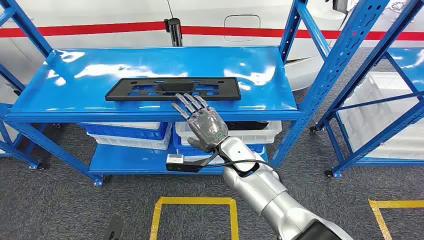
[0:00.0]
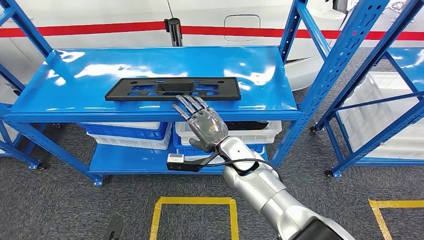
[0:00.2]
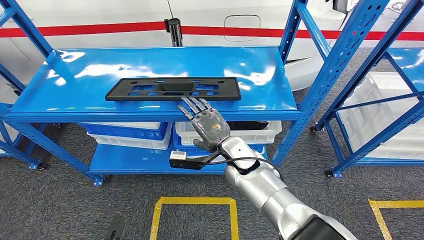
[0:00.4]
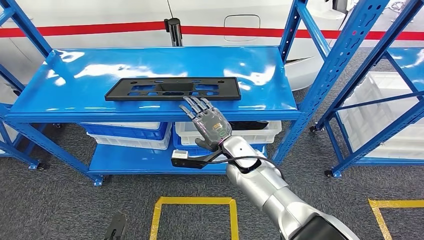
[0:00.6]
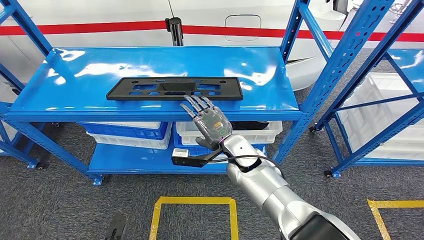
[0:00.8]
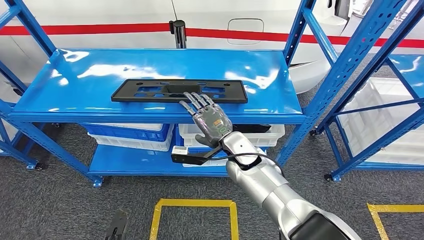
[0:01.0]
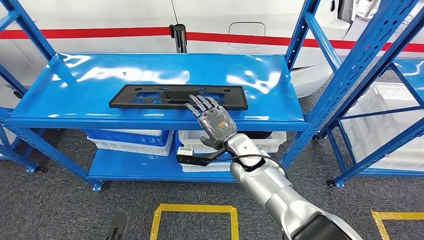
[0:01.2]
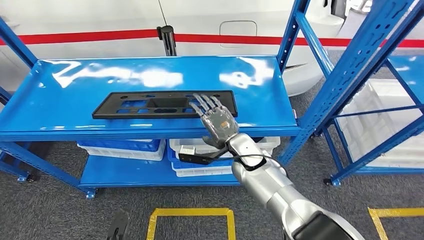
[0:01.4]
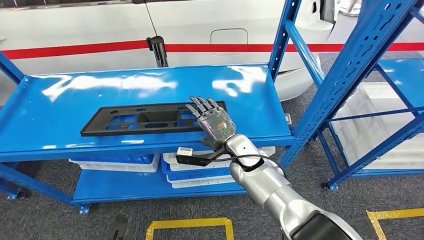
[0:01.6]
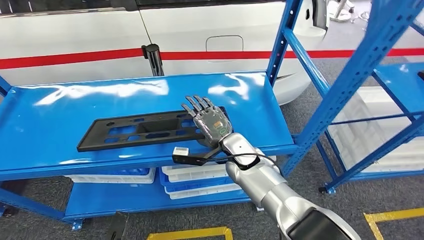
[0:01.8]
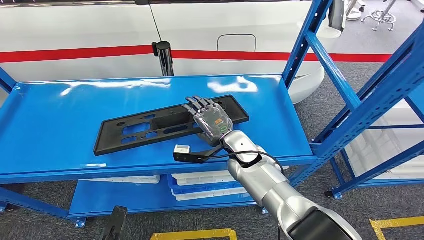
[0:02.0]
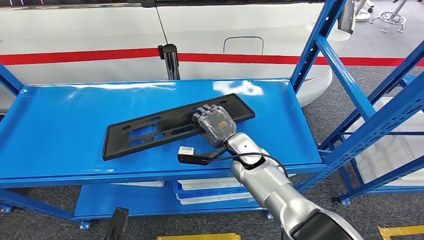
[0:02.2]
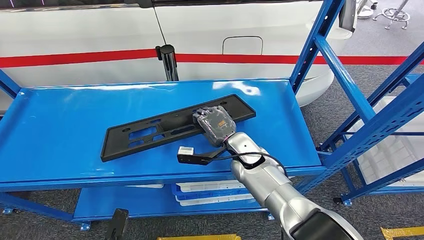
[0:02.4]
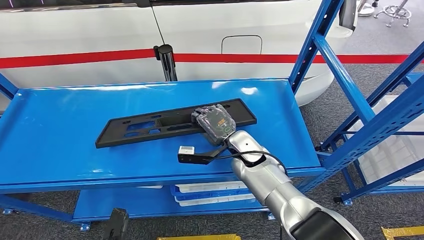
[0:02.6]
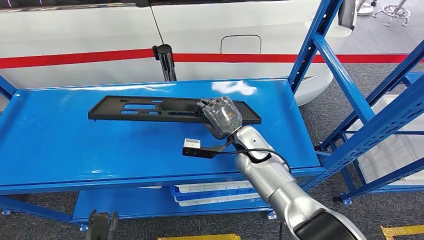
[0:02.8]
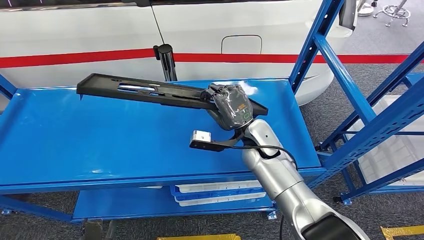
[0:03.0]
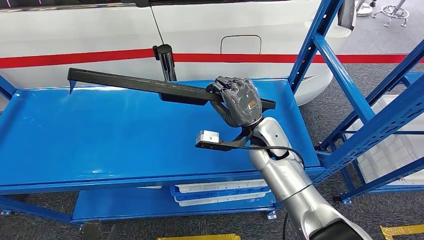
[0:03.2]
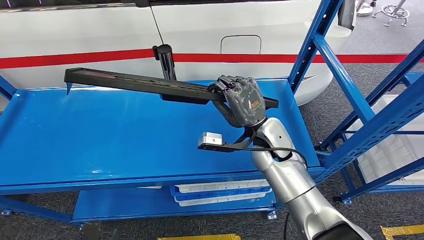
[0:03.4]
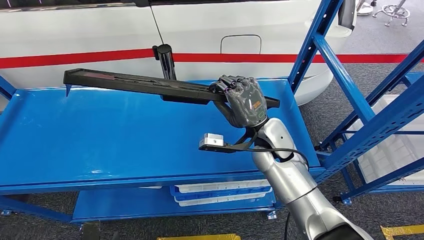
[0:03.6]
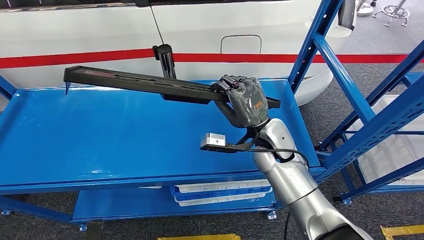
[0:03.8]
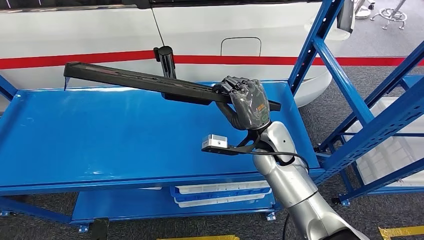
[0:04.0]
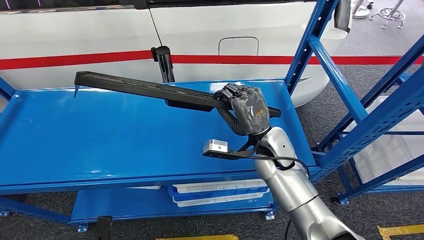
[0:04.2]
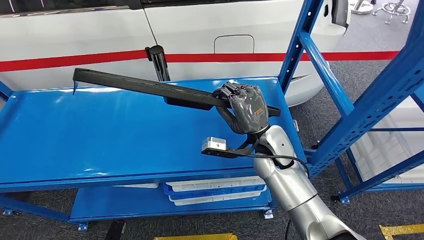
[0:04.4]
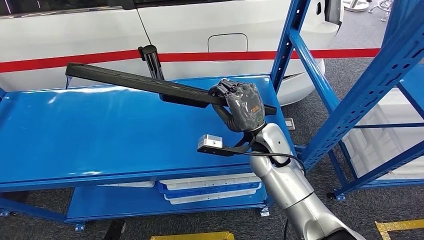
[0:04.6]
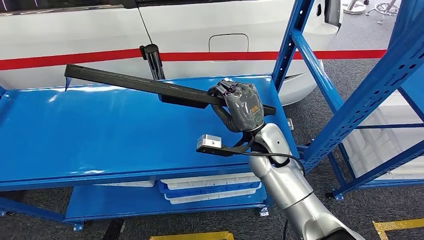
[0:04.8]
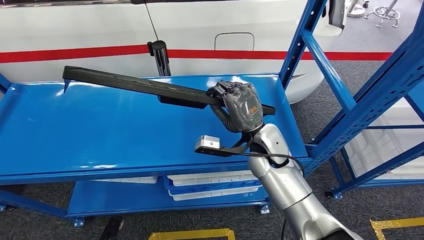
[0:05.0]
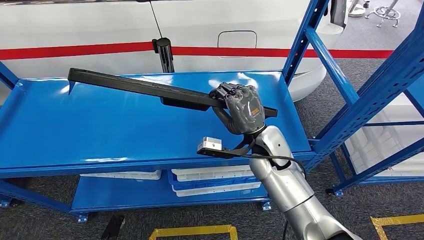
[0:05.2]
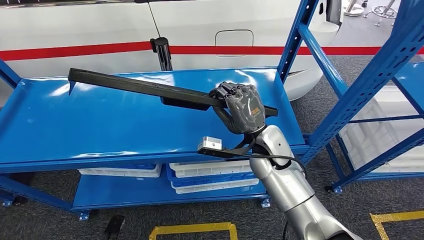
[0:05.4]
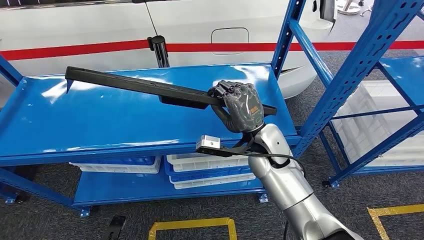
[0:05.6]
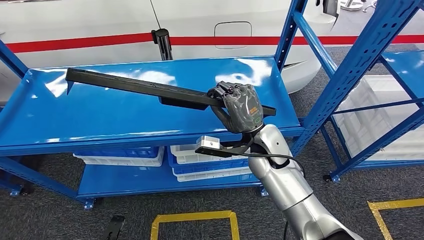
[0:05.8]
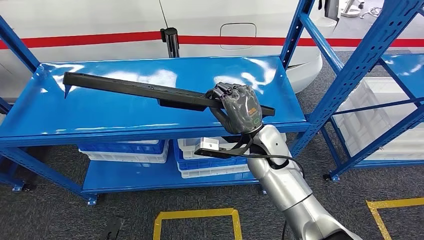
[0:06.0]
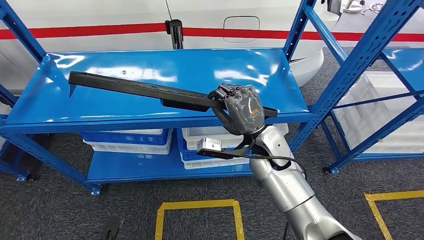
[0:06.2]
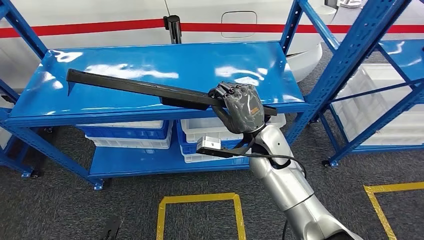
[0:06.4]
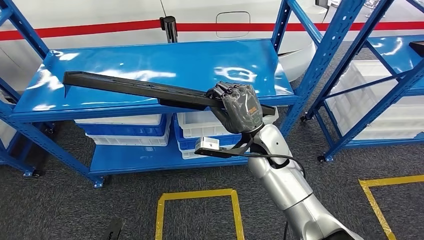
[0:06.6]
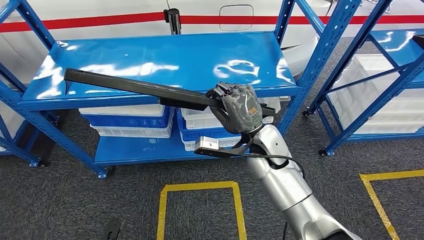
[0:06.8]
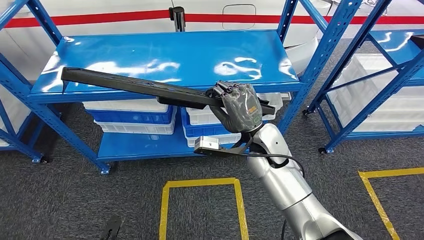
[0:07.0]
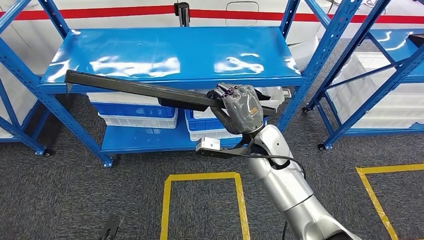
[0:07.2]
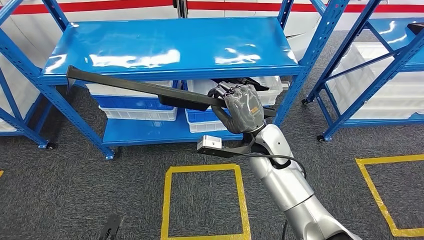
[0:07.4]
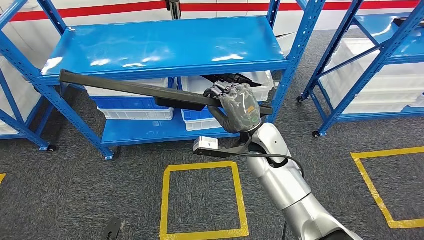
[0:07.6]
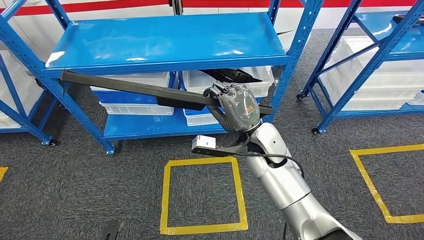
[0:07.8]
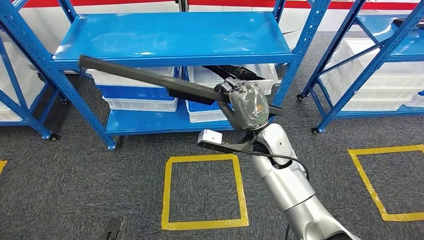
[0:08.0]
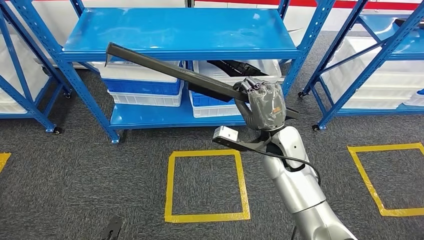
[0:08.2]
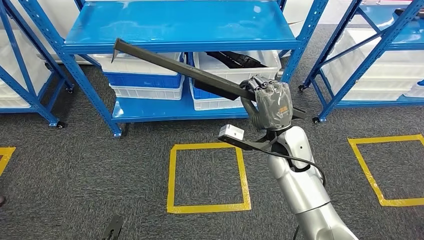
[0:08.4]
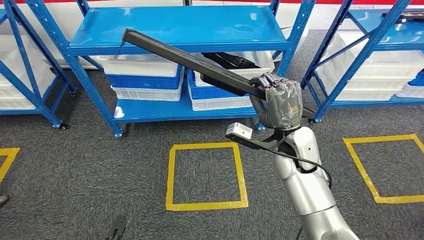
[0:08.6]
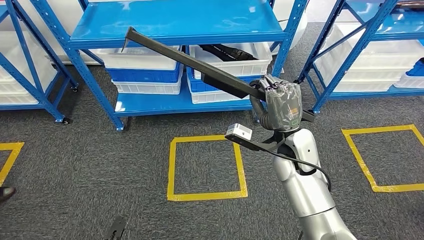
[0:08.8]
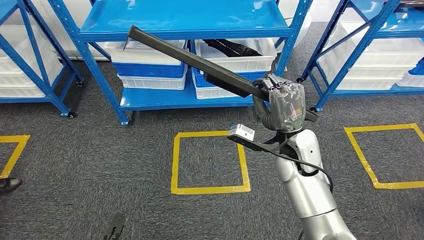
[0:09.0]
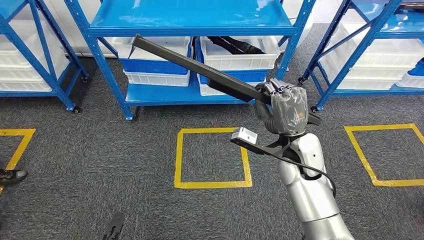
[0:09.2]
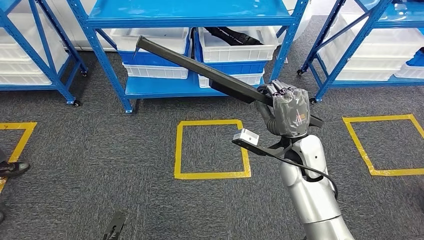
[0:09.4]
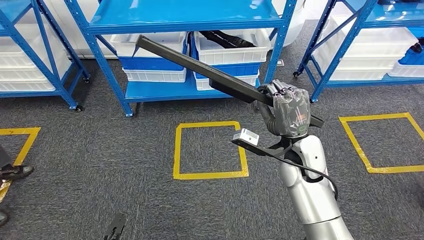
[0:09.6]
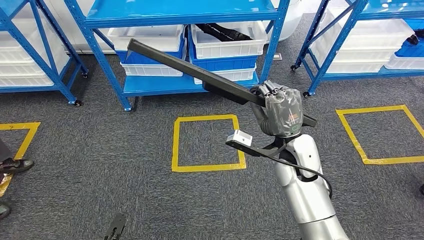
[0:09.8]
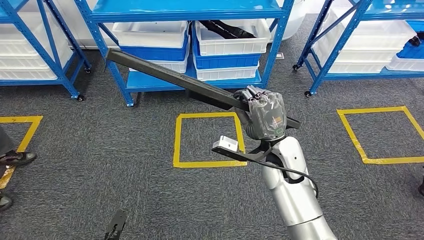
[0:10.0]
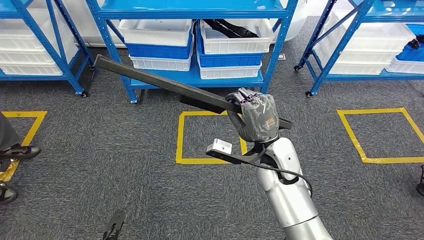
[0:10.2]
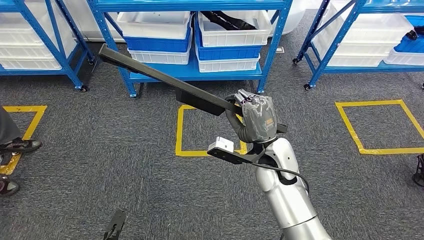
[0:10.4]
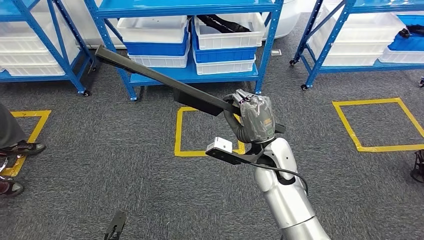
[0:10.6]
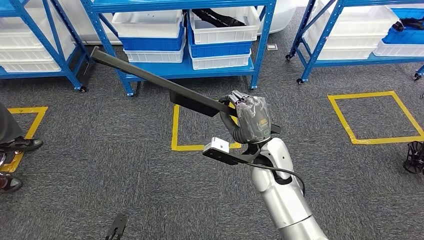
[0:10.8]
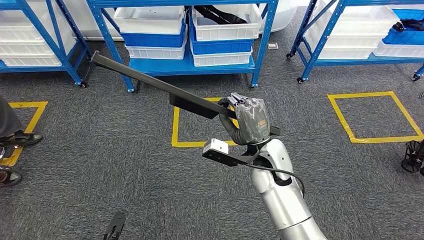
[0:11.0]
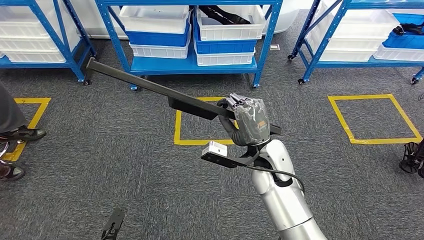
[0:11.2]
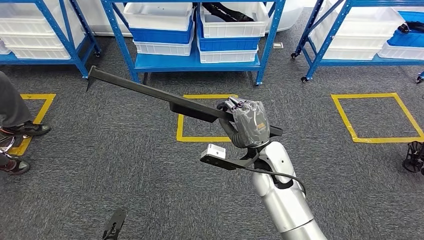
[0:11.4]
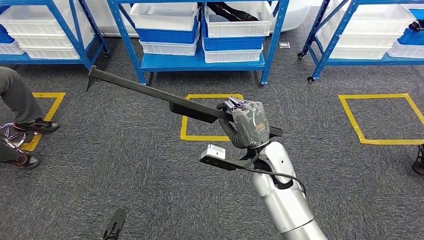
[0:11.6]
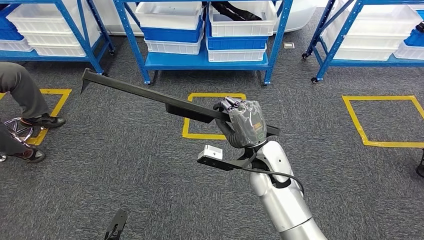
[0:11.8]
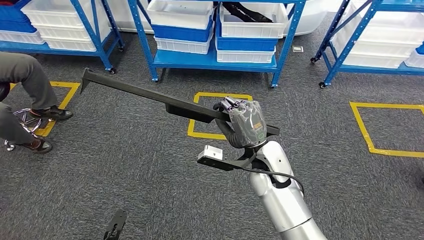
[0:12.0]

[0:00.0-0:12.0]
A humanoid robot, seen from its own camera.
Step, 0:00.0 to 0:07.6: Pick up the large material from the shelf.

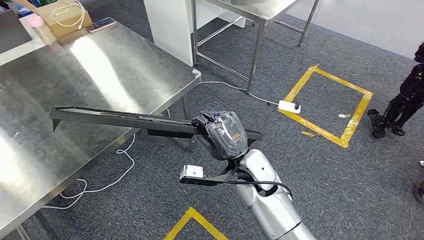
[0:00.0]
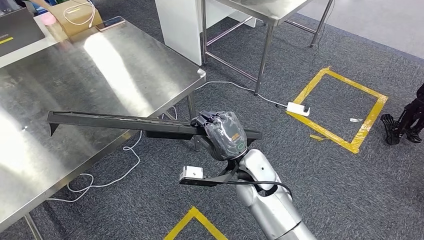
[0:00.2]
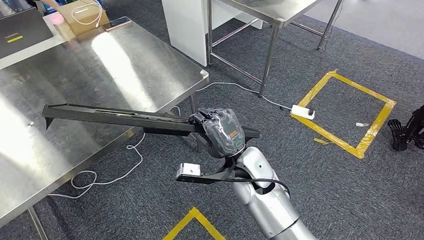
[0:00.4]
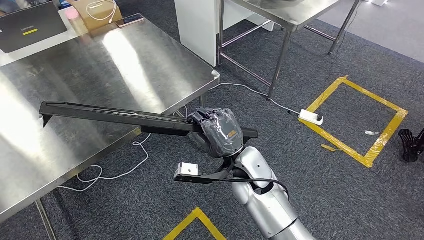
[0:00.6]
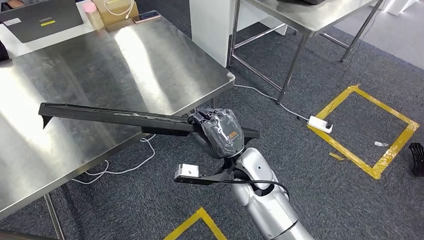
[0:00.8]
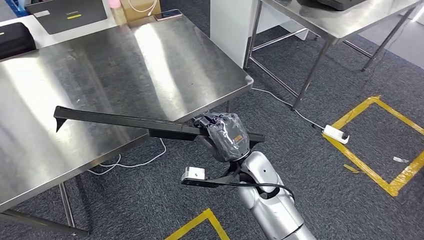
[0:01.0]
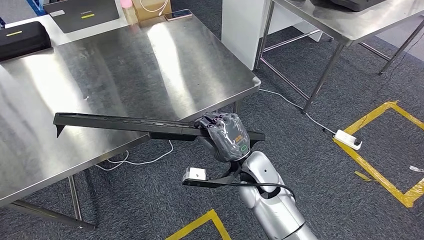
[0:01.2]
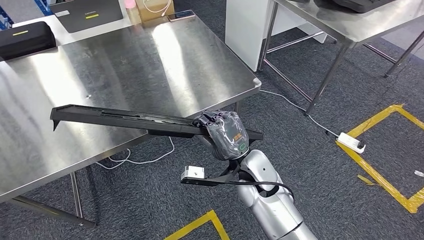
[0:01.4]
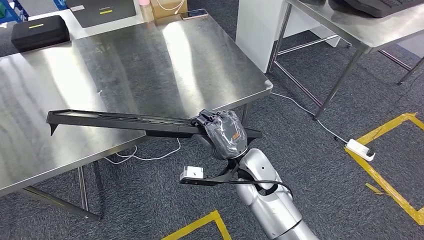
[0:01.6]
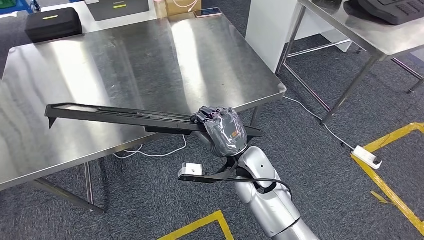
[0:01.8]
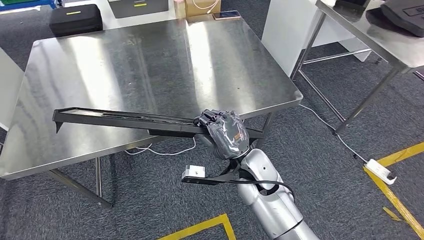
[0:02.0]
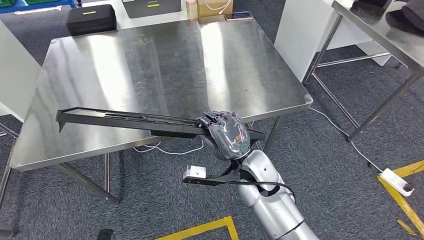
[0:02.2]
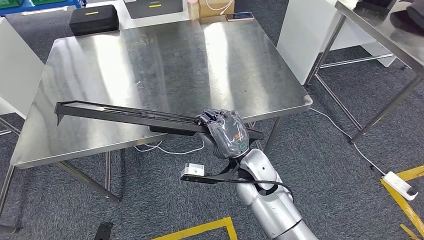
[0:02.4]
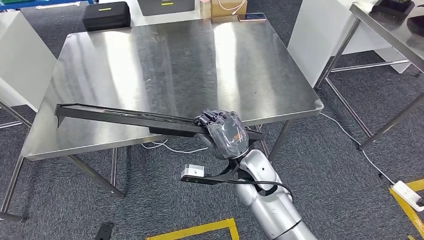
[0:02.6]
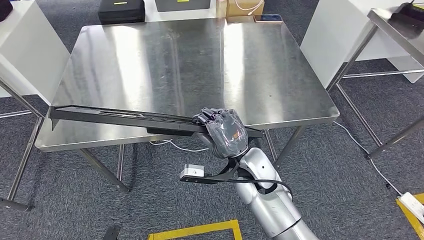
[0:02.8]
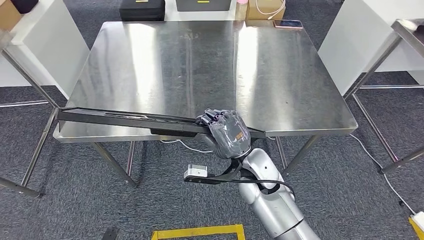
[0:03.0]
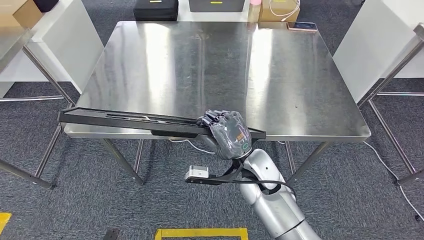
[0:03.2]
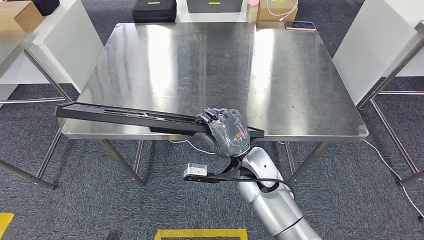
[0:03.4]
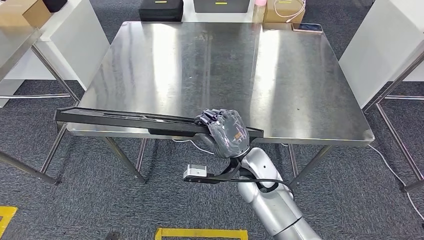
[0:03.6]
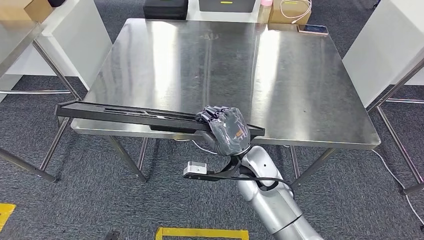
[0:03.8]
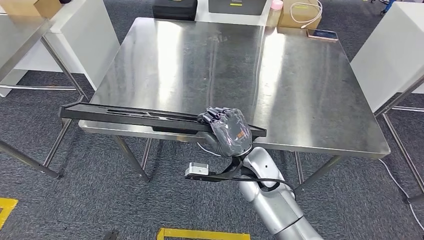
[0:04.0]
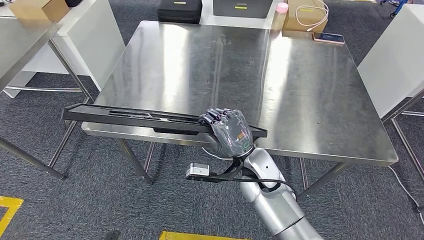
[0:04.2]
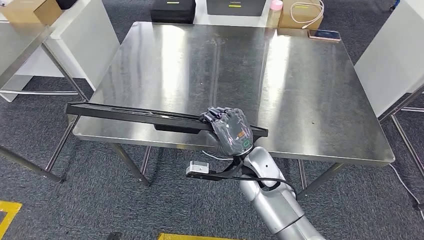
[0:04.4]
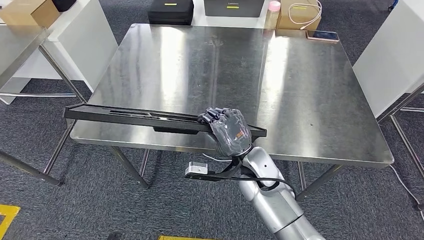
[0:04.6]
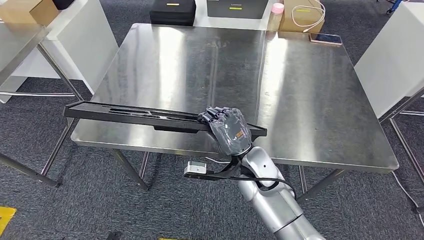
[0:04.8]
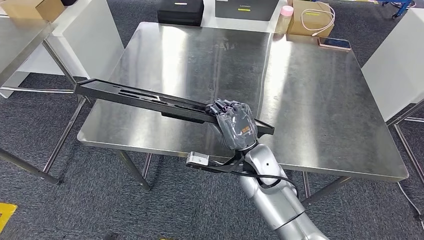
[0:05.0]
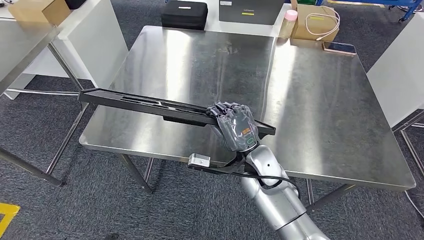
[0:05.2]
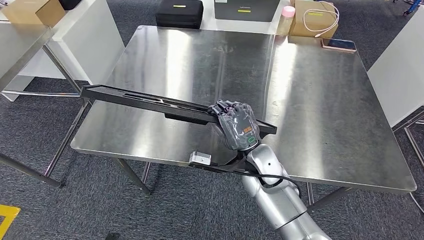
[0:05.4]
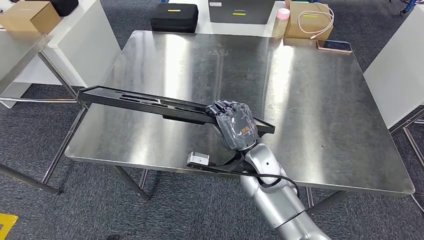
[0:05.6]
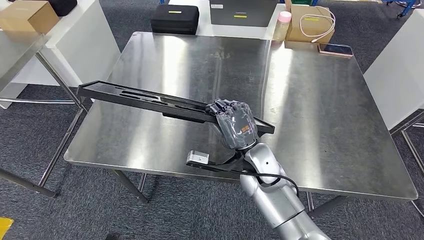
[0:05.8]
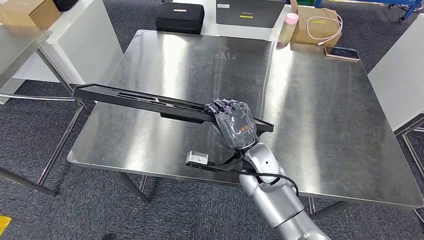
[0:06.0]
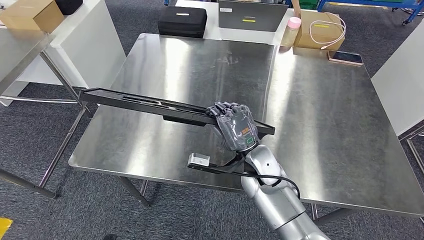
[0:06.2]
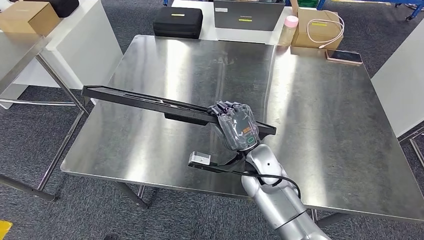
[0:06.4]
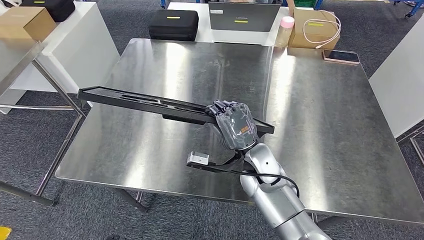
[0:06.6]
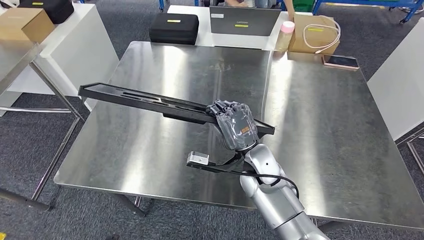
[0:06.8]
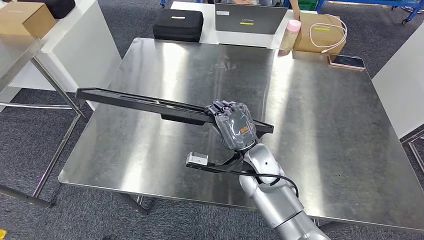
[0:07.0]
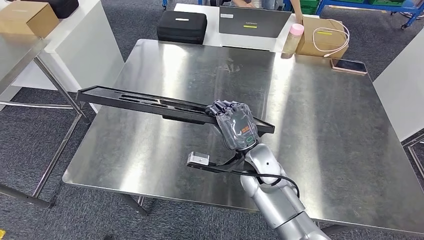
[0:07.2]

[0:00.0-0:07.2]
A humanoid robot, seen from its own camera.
Step, 0:00.0 to 0:03.2: Move the large material to the front of the workbench.
